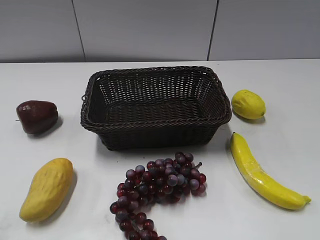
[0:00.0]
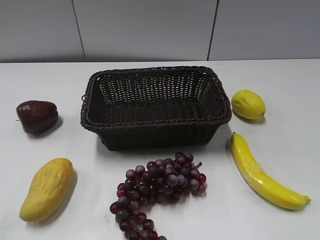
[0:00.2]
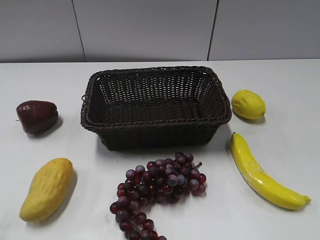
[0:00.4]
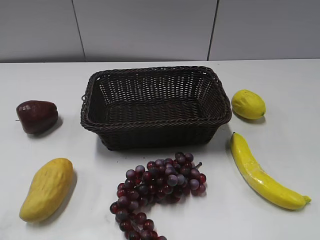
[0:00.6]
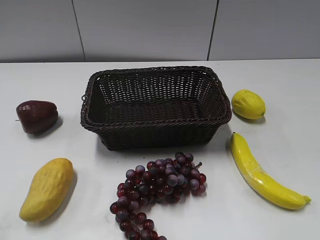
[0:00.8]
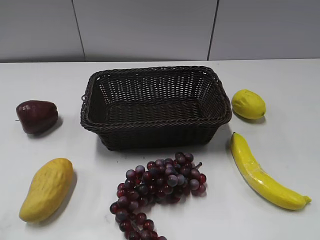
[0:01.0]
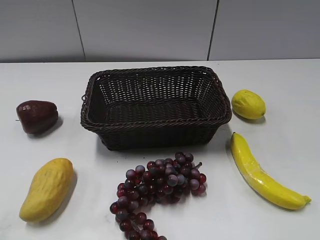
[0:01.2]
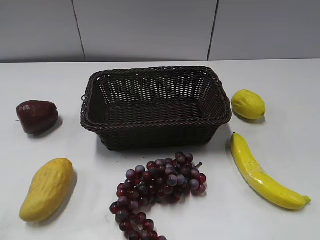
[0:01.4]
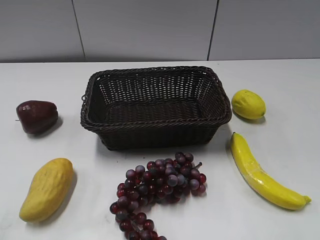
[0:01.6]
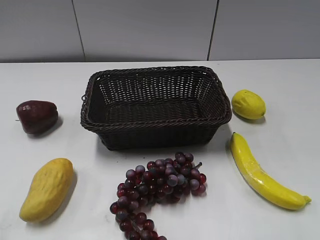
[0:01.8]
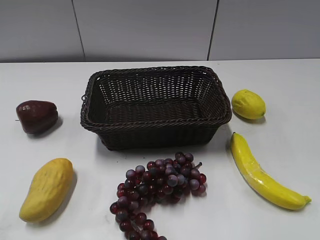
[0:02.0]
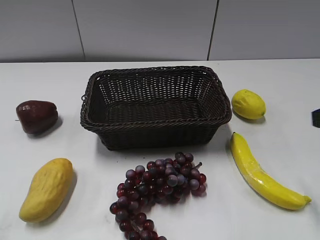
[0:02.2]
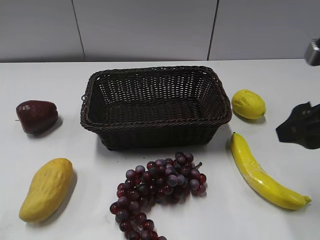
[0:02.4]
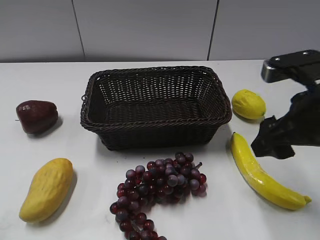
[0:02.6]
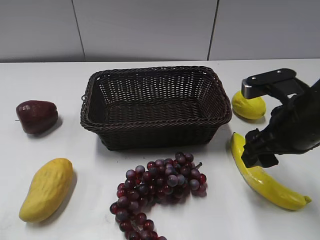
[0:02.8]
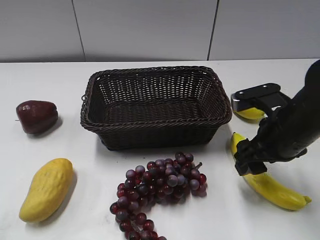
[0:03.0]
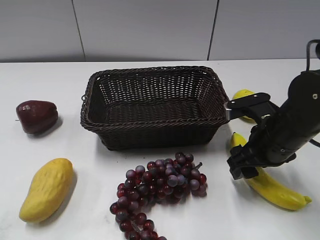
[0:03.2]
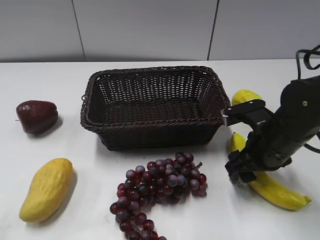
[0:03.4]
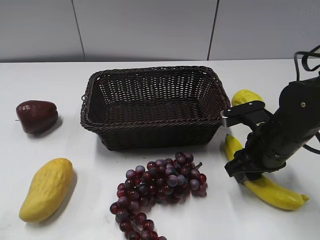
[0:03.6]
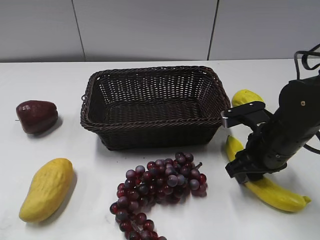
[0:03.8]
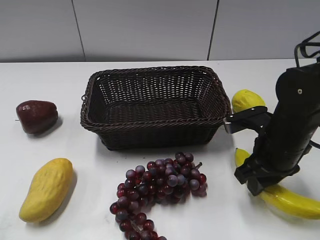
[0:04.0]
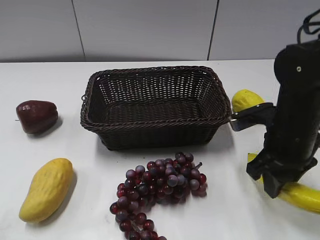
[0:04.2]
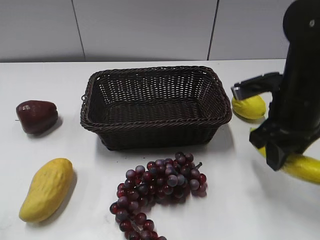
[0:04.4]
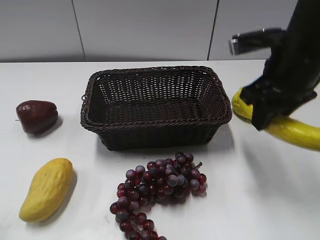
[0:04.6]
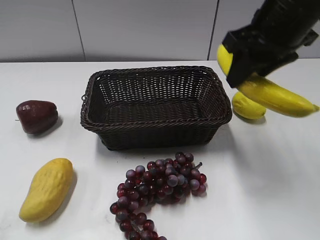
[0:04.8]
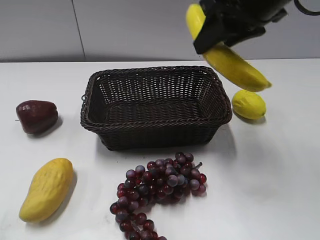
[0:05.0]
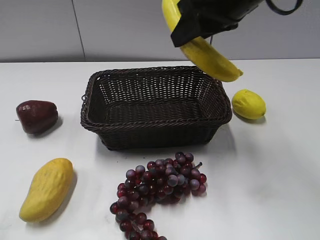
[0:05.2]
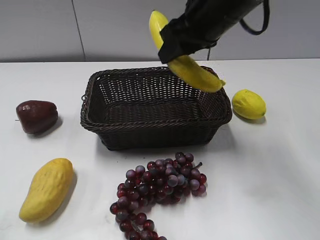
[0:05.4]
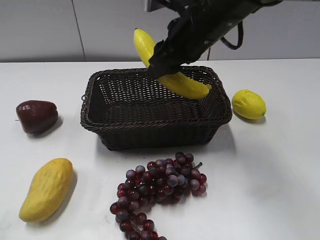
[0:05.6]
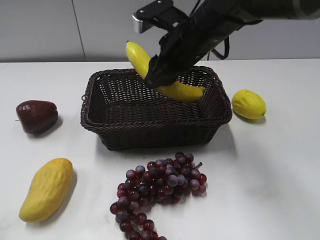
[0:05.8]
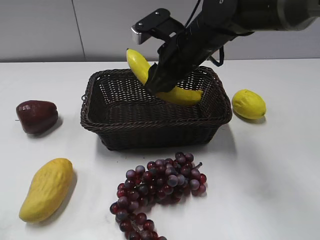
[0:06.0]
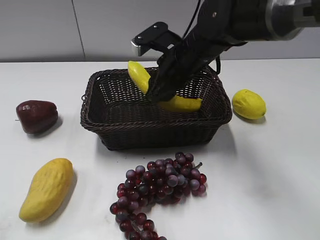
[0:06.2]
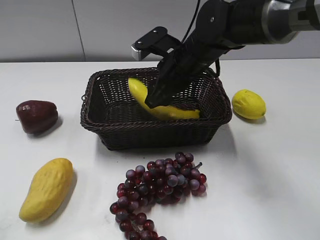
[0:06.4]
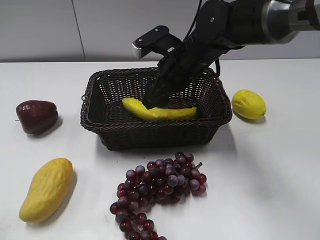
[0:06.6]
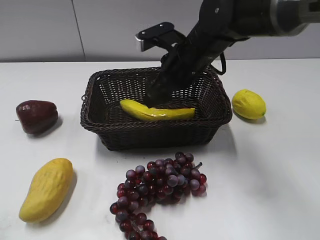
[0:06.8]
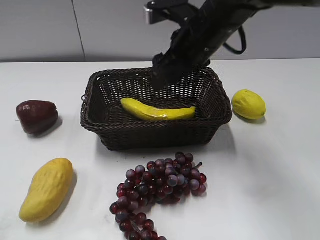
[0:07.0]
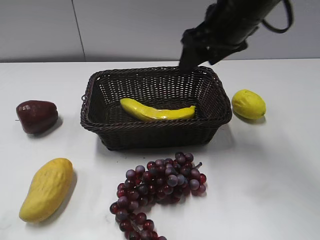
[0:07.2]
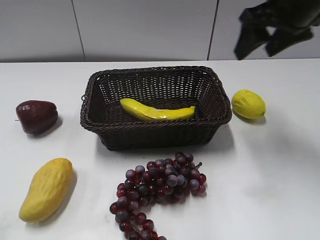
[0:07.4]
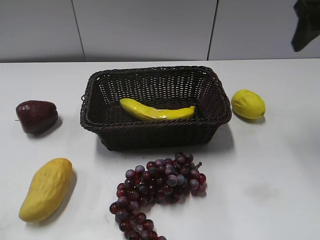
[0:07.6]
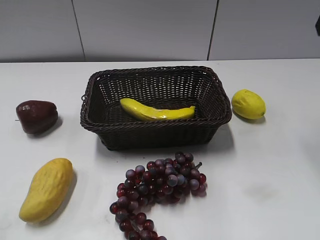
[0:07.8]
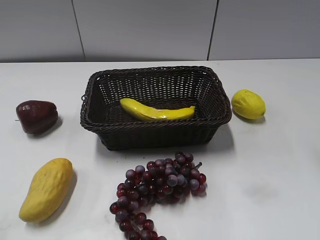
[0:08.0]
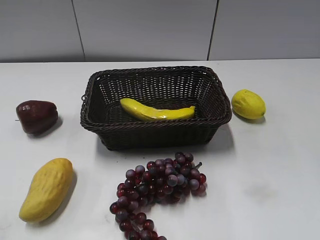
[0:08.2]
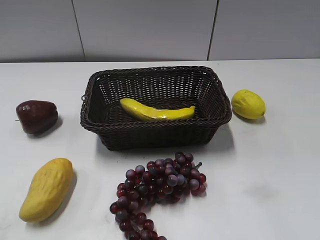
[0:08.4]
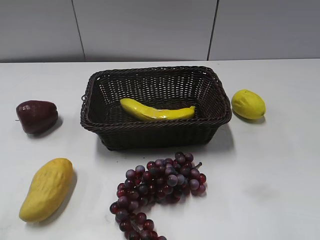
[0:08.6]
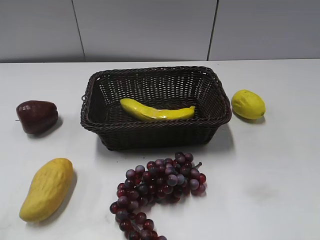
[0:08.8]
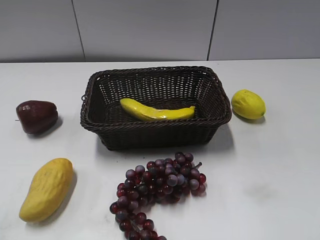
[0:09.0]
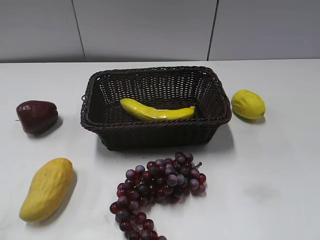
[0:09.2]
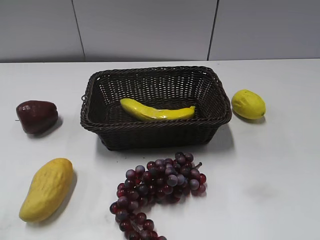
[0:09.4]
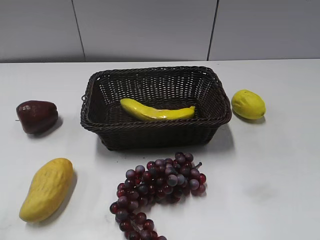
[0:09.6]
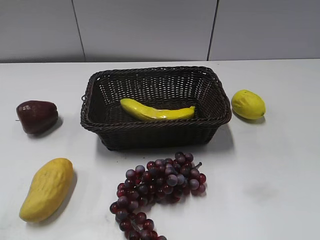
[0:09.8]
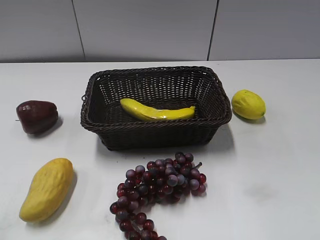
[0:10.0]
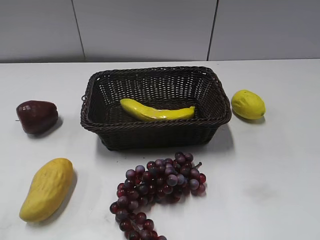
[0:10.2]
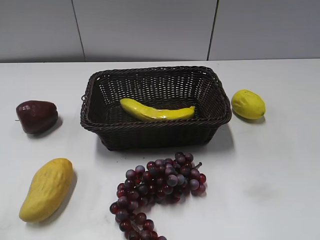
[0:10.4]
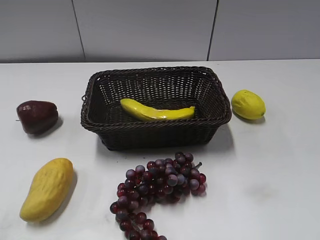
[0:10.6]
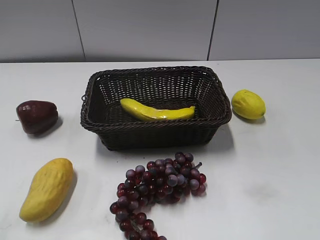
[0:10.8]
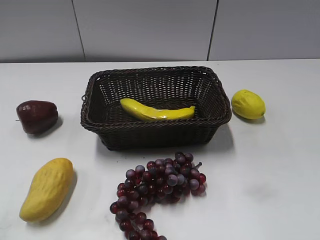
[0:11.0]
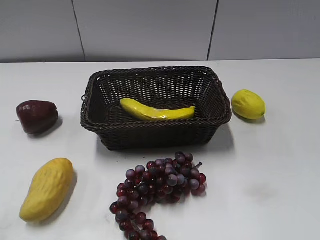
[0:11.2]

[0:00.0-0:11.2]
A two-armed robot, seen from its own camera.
Step, 0:02.2 to 0:04.0: Grasp the banana with right gripper.
Step, 0:04.2 to 0:06.6: Place the banana in the basket with right gripper.
0:01.6 to 0:03.2: The right gripper goes about 30 cm forward, downward and to the left.
0:03.2 to 0:04.8: The right gripper moves upward, approximately 15 cm, and closes its fingers.
0:04.8 to 0:06.4: The right gripper is displaced downward, to the left and forward by approximately 20 cm.
0:06.4 to 0:08.0: The right gripper shifts about 30 cm upward, to the right and backward, and opens.

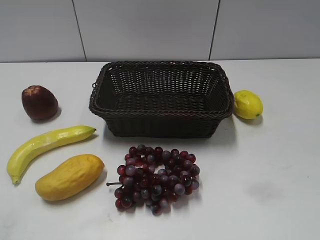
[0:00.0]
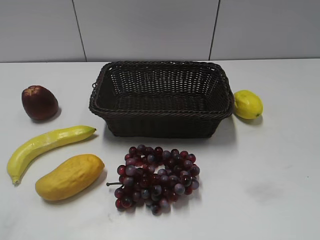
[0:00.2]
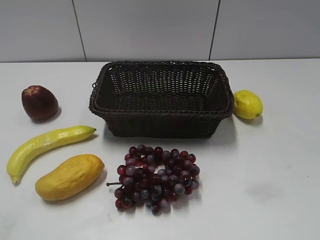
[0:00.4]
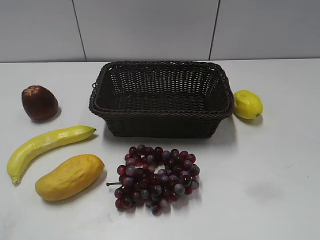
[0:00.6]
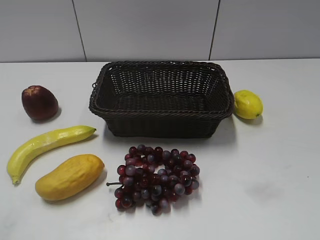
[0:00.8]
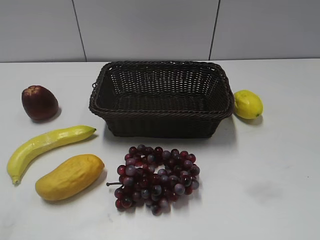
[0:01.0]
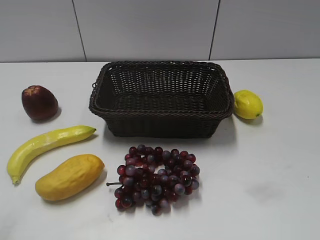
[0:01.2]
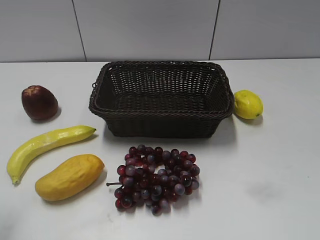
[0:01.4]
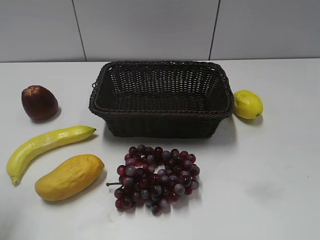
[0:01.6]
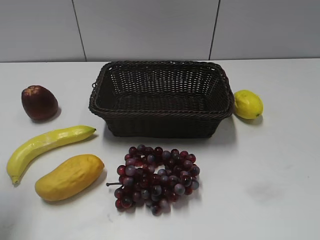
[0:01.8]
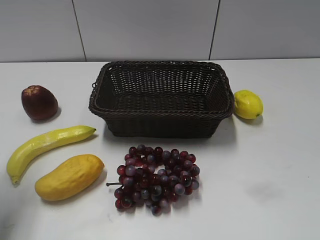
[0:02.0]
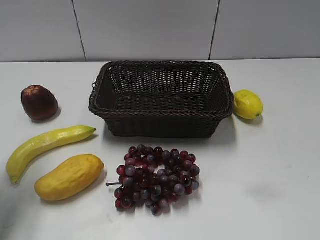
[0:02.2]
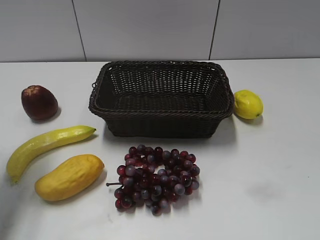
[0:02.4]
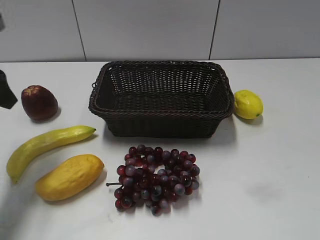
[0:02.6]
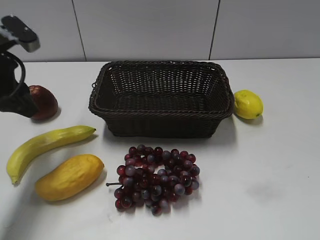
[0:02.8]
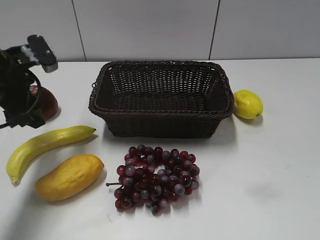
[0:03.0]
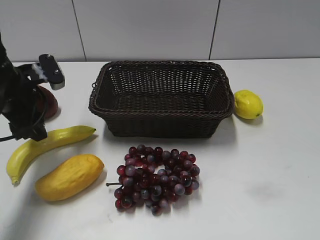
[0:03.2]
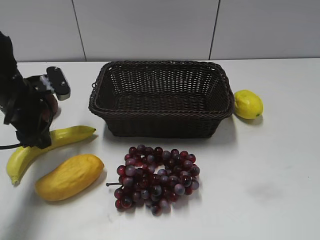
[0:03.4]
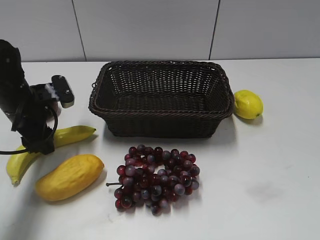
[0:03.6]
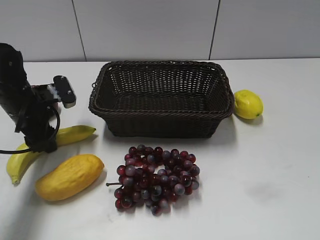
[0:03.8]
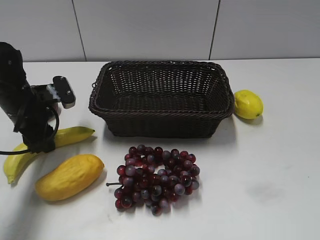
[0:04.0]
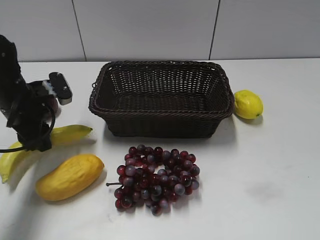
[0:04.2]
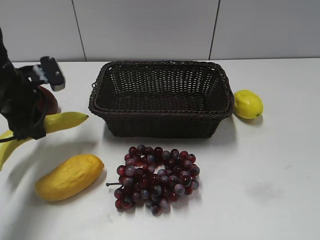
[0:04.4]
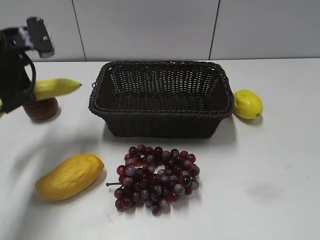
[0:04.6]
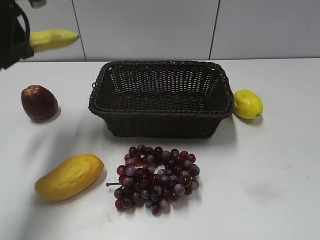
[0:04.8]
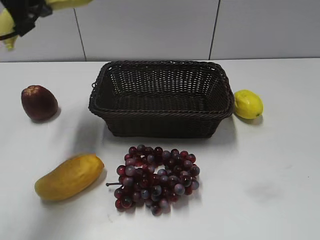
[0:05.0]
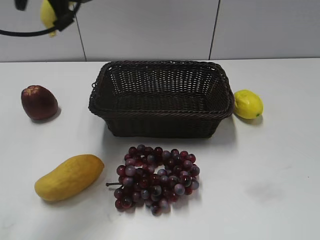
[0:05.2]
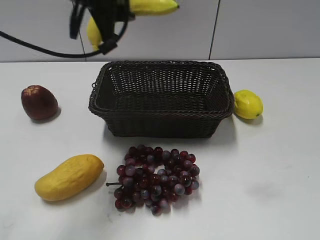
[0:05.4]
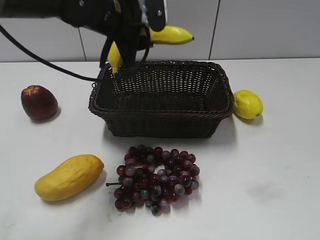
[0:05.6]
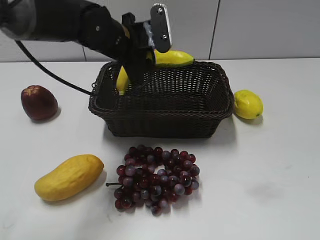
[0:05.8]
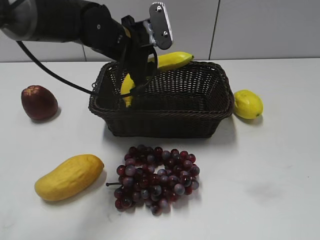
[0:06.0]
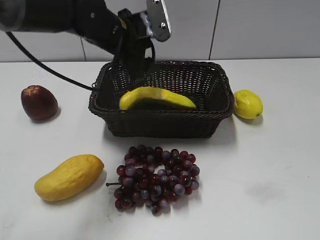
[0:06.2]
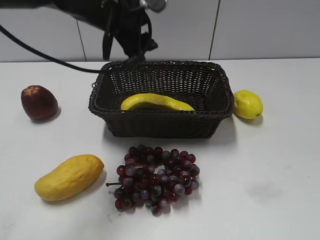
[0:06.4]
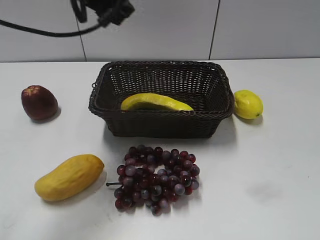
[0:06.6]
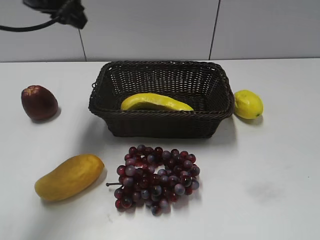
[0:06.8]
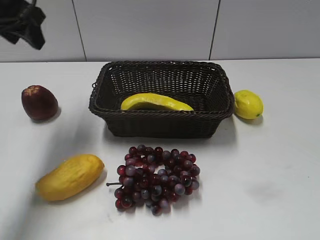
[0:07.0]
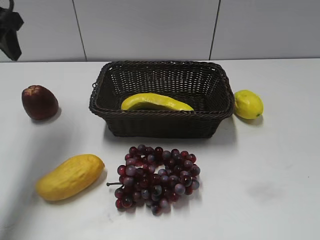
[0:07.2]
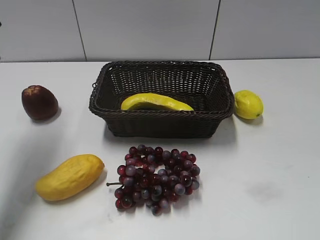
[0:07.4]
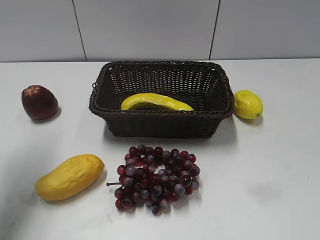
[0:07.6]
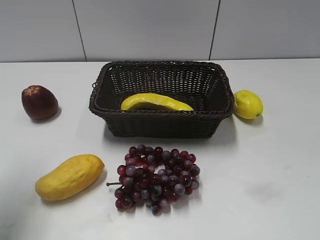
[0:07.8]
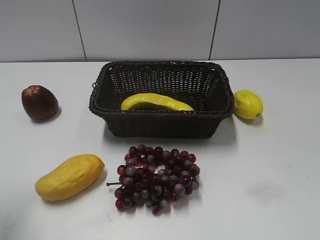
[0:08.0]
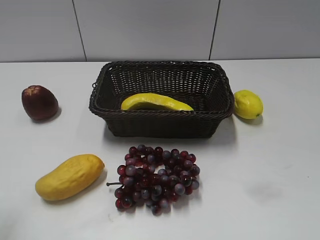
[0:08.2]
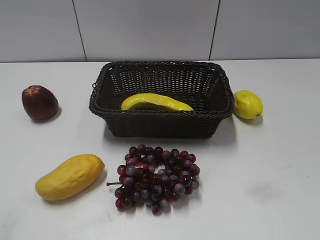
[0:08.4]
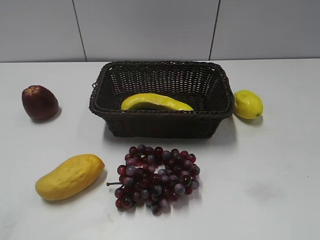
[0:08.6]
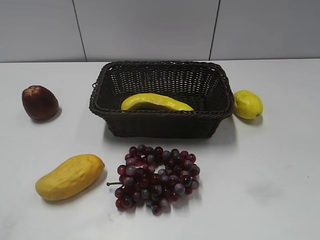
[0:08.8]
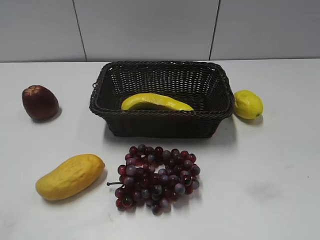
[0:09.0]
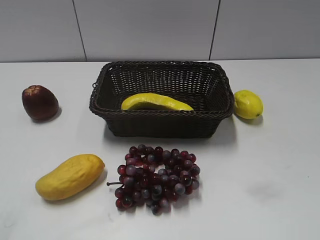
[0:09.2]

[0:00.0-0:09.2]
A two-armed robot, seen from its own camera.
Step, 0:02.6 to 0:03.8: Grasp the banana with left gripper.
Step, 0:04.2 to 0:06.2: Place the banana in the basket with left gripper.
0:01.6 to 0:03.0: The left gripper moves forward, downward and to the right, roughly 20 cm.
0:03.0 to 0:04.6: The left gripper travels downward and back again, roughly 10 cm each way, and closes its fingers.
0:04.6 to 0:06.2: The left gripper shifts about 15 cm to the right, and opens.
0:06.2 to 0:07.6: The left gripper moves to the left, backward and upward, roughly 25 cm.
0:07.6 to 0:09.2: The left gripper heads backward, covering approximately 30 cm.

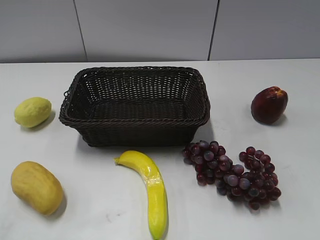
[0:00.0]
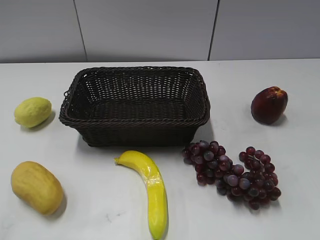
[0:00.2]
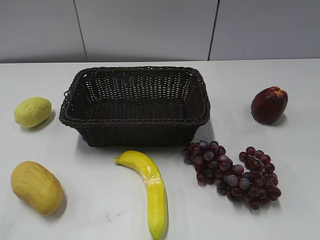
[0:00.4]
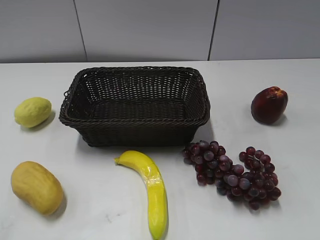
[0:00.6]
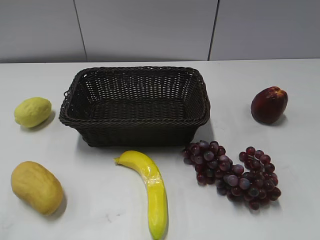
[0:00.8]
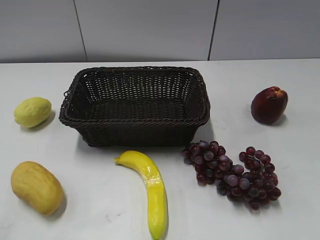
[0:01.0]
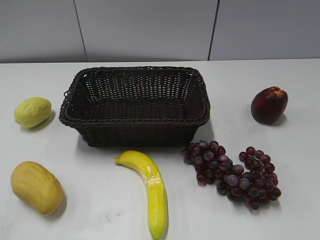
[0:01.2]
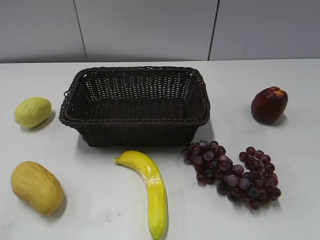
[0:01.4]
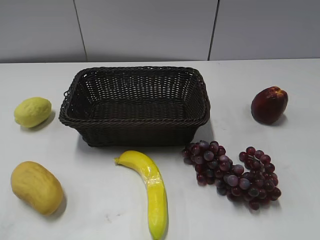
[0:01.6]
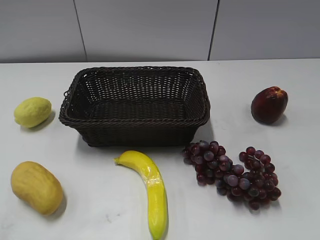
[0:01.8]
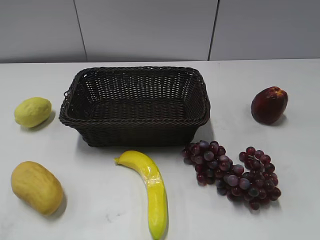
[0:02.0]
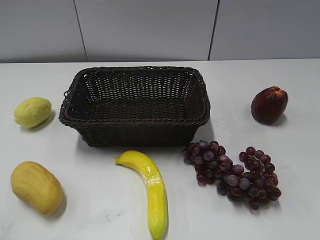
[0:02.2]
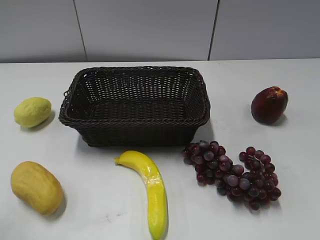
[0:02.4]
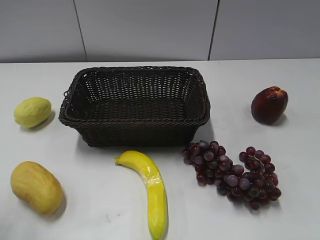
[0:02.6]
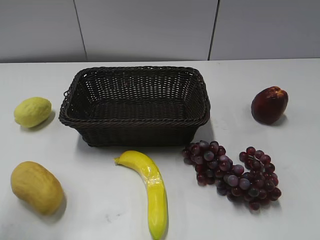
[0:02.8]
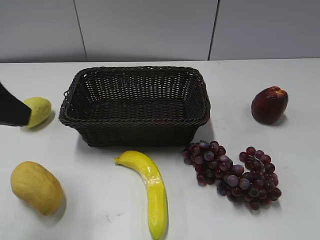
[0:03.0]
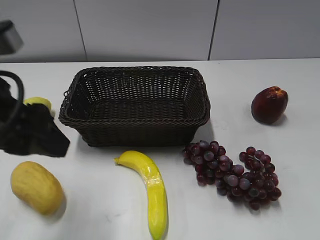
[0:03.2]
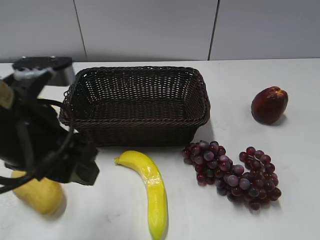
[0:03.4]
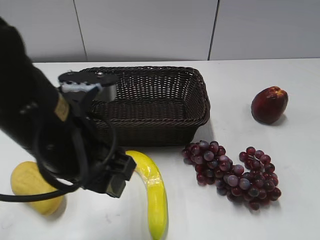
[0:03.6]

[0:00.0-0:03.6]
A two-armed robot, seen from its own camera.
0:01.8 to 0:03.6: The left gripper travels to the right and forward by some 25 cm.
